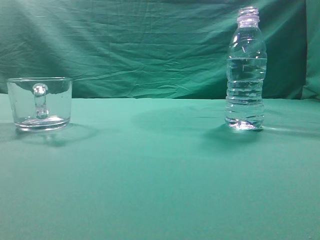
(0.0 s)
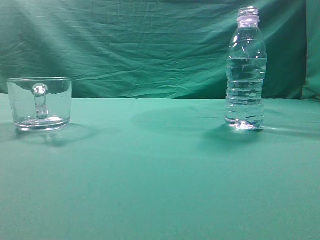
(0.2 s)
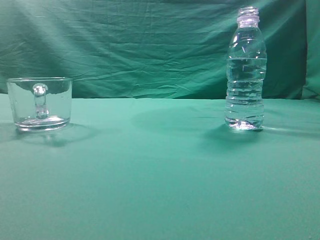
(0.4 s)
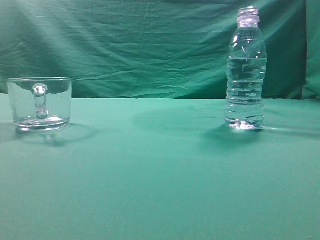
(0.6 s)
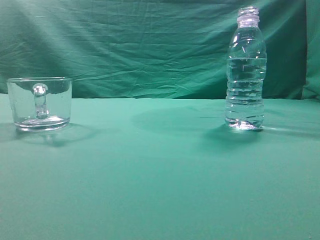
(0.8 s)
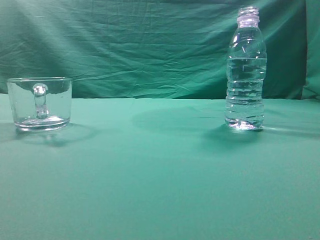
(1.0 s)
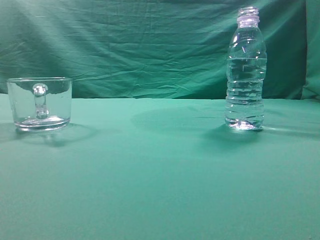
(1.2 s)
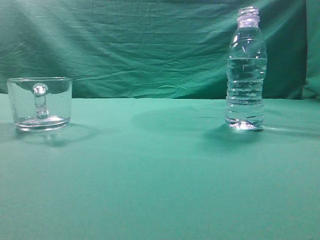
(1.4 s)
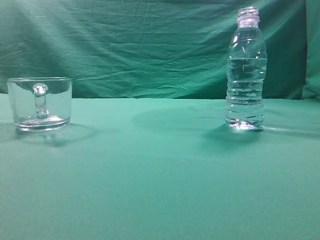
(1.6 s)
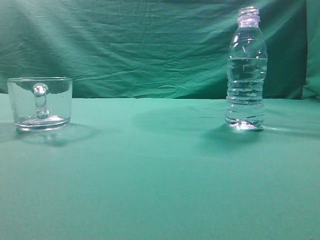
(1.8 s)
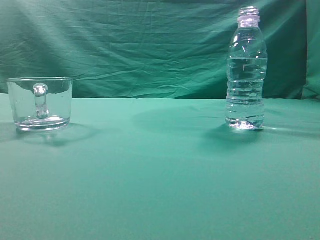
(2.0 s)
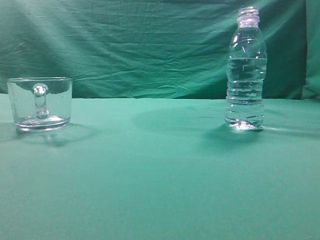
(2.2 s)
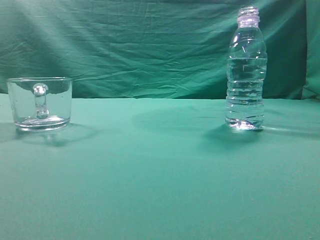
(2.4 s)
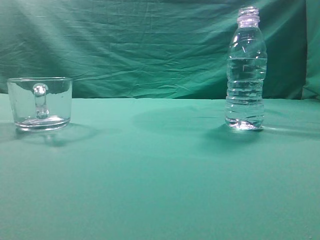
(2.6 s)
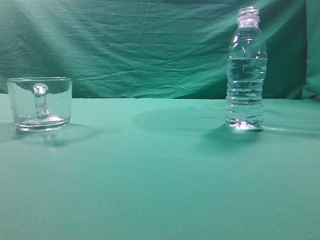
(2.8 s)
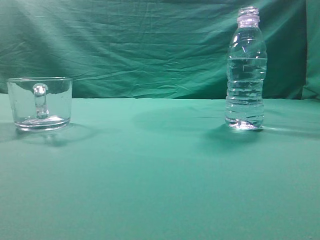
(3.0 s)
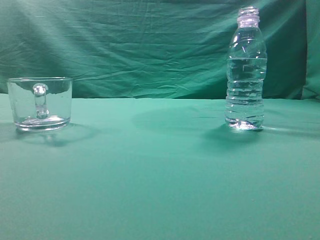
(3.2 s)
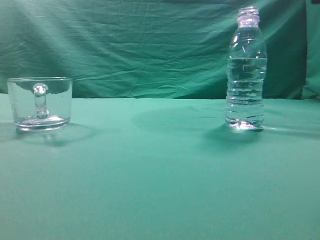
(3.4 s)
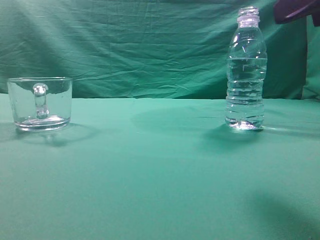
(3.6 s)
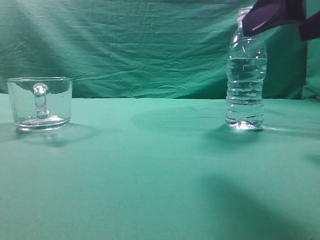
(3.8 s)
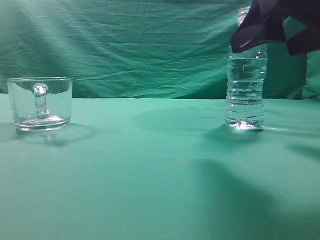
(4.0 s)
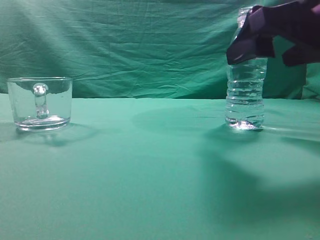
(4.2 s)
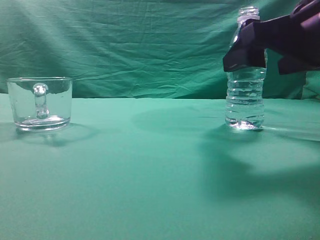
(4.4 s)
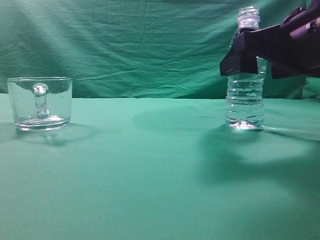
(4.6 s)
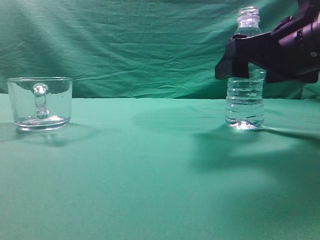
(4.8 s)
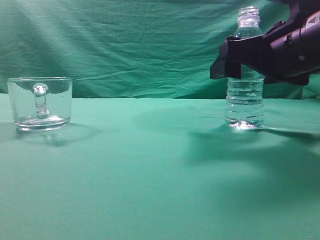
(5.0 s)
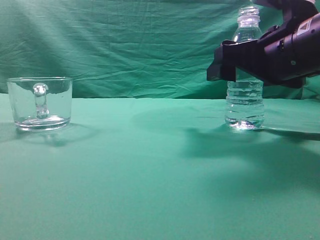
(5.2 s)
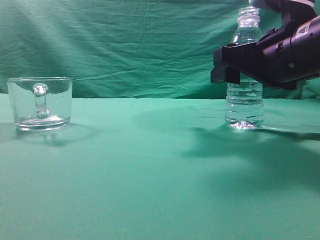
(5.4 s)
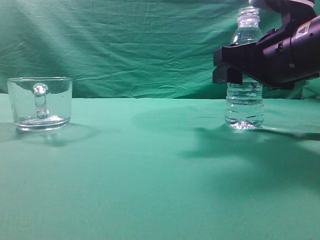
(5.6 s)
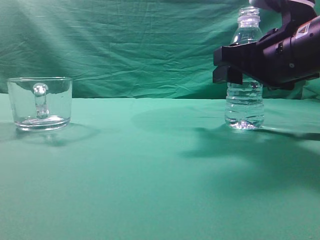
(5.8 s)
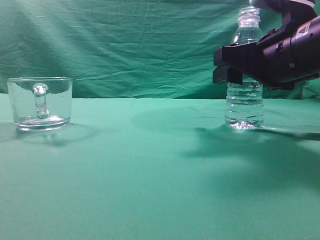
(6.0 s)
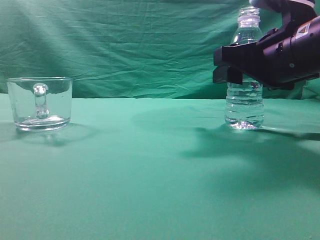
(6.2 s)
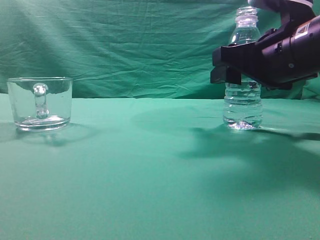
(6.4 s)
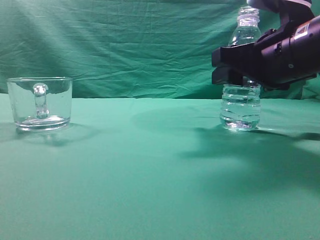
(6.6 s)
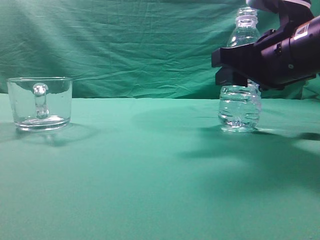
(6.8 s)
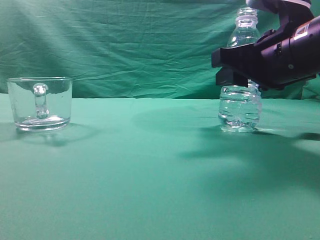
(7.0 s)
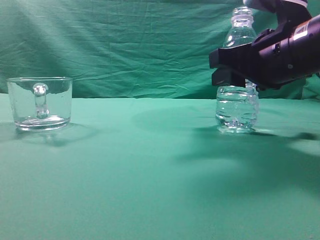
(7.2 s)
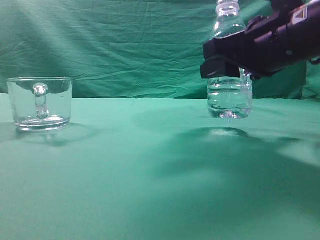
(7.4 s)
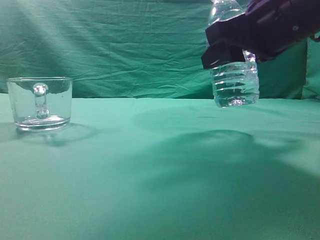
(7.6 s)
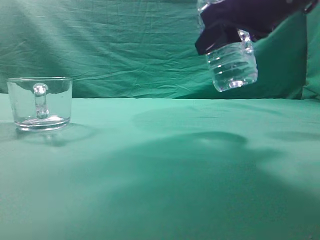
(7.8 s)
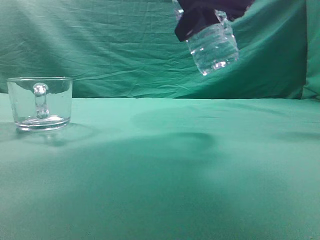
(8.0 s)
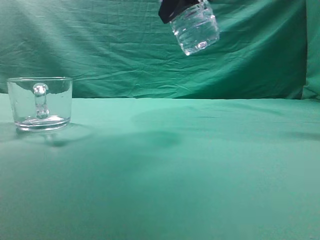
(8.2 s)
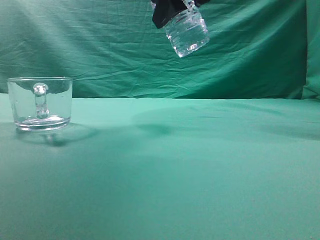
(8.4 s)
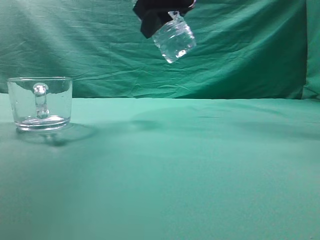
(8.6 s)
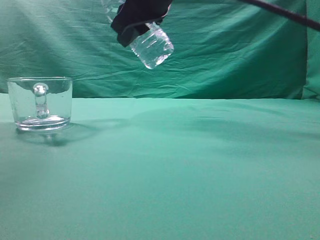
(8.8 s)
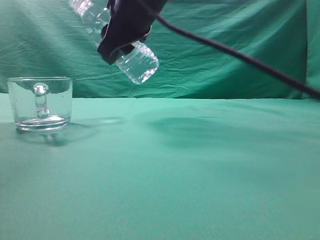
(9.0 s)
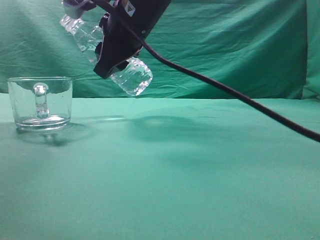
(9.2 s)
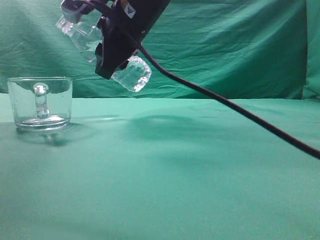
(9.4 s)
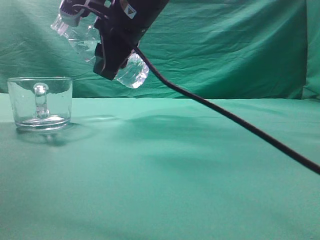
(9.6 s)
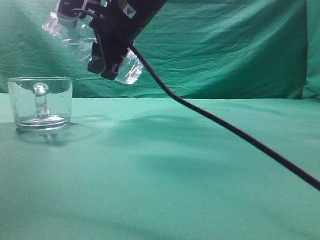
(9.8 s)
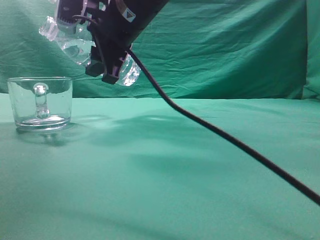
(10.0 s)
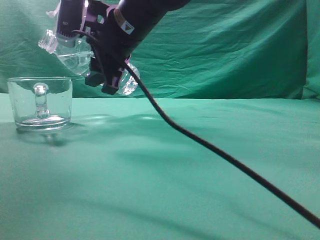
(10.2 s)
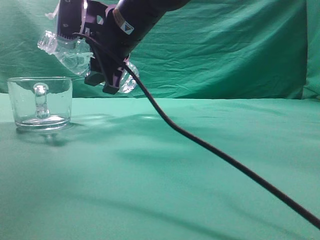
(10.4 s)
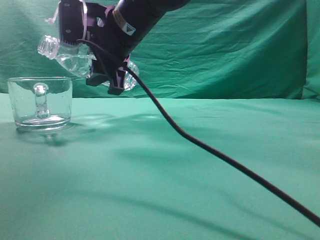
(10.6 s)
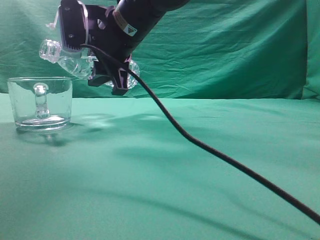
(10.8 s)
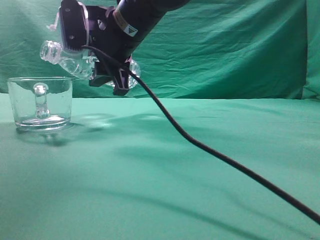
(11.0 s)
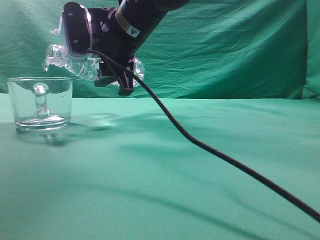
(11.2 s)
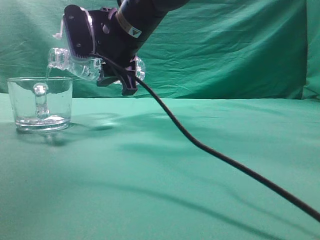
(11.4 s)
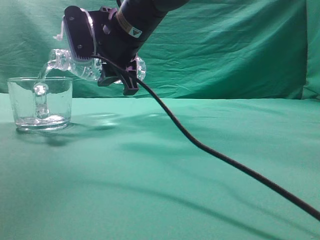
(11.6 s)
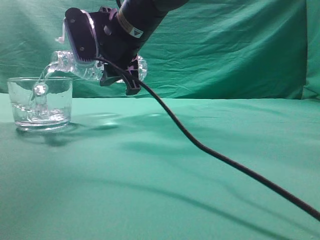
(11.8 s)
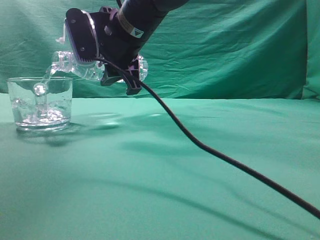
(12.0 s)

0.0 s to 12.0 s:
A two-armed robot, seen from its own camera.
Task of the whole recording: pick up the water bottle and pour the water in it into the glass.
Step, 0.0 to 7.6 s: Grasp the mineral water bottle.
3.0 to 4.4 s: The right gripper heads forward, downward and to the left, covering approximately 15 cm, and opens its fingers.
4.4 to 6.0 s: The right gripper heads forward, covering roughly 5 cm.
7.6 to 9.0 s: The right gripper is displaced to the left and forward by about 20 cm.
9.0 to 10.4 s: The right gripper changes place by roughly 5 cm.
10.4 to 12.0 s: The grippers move only a little.

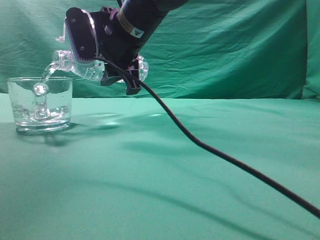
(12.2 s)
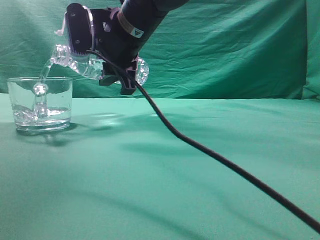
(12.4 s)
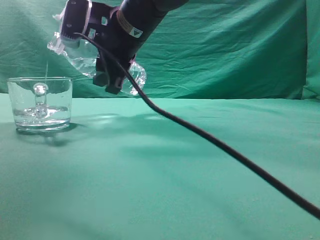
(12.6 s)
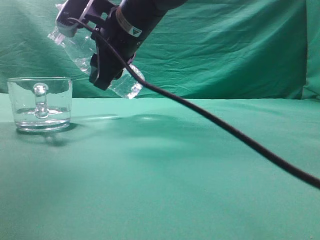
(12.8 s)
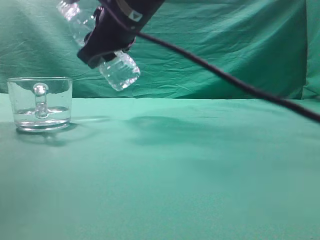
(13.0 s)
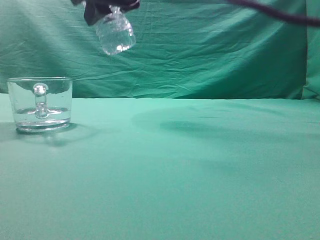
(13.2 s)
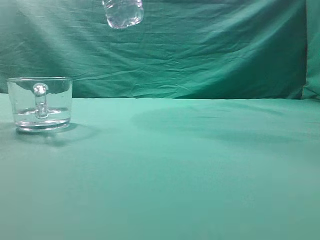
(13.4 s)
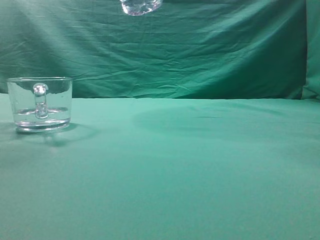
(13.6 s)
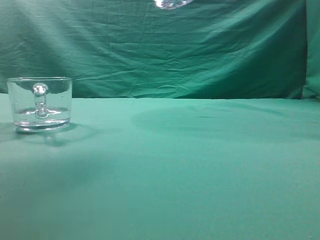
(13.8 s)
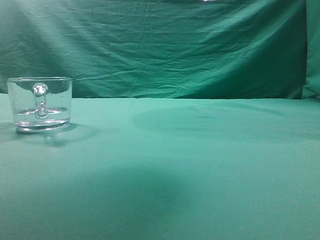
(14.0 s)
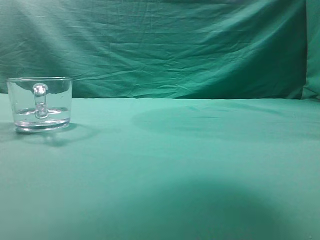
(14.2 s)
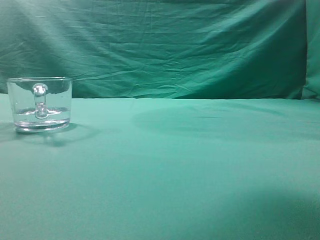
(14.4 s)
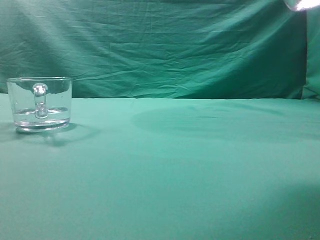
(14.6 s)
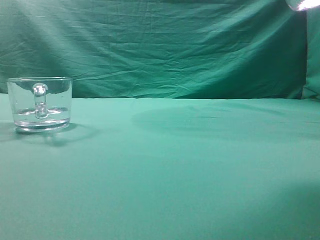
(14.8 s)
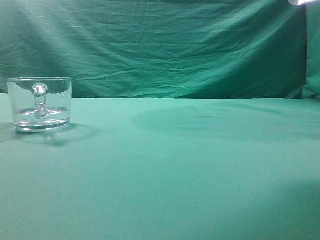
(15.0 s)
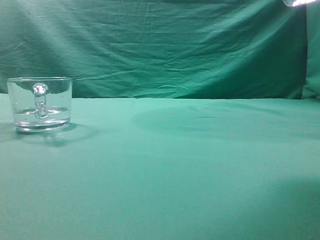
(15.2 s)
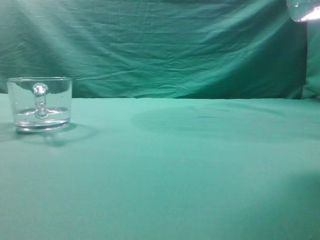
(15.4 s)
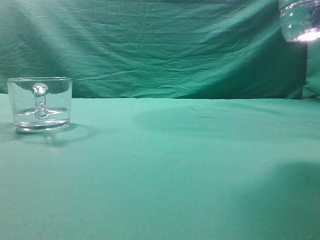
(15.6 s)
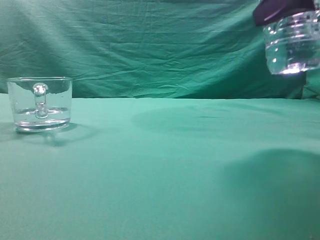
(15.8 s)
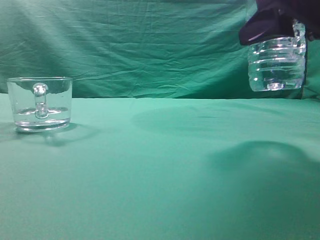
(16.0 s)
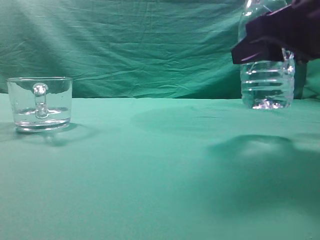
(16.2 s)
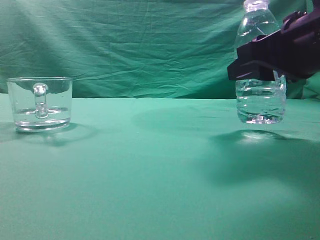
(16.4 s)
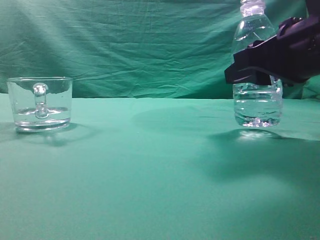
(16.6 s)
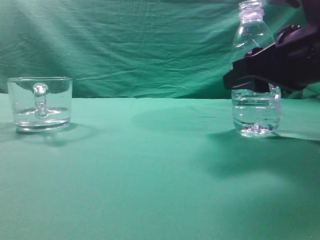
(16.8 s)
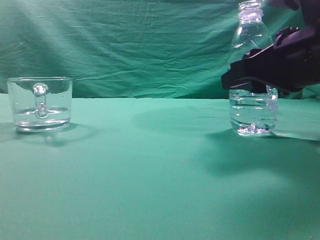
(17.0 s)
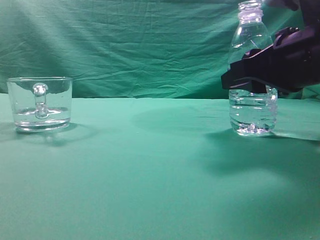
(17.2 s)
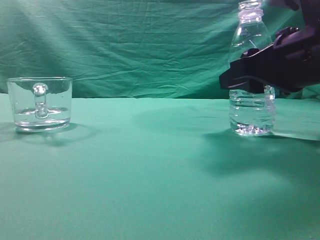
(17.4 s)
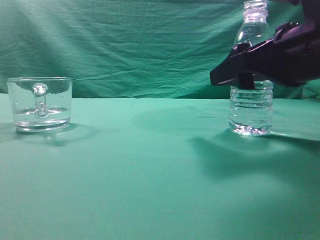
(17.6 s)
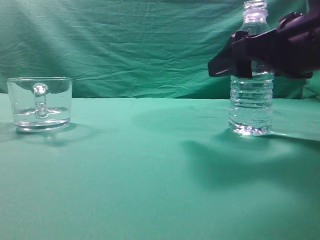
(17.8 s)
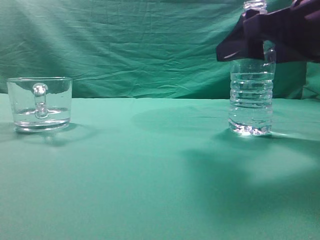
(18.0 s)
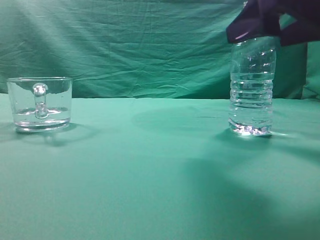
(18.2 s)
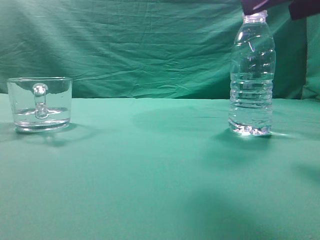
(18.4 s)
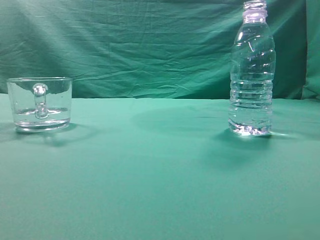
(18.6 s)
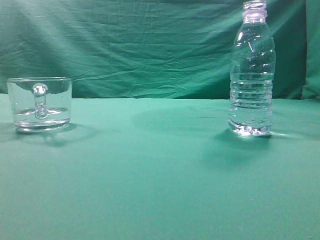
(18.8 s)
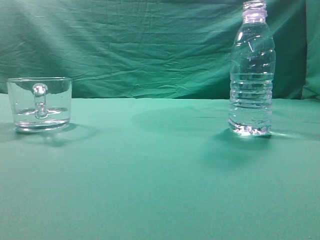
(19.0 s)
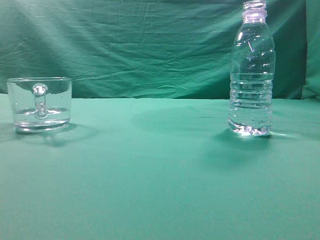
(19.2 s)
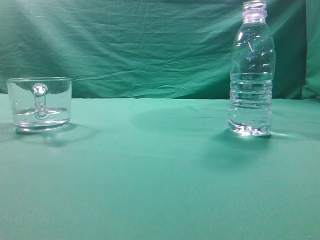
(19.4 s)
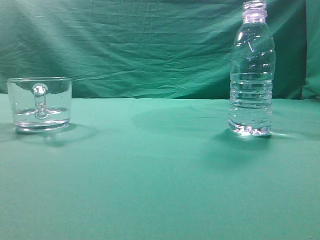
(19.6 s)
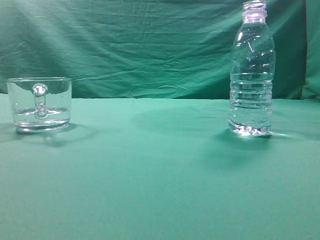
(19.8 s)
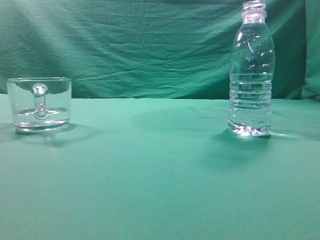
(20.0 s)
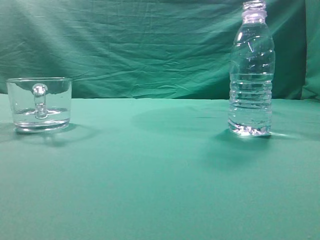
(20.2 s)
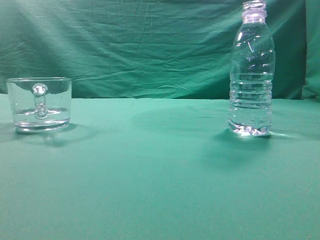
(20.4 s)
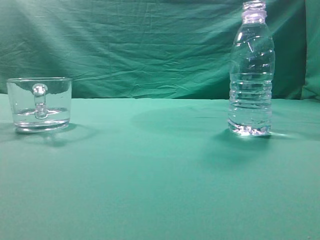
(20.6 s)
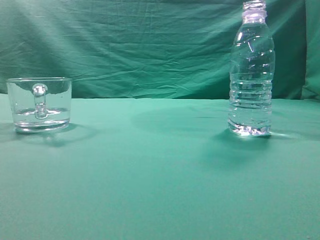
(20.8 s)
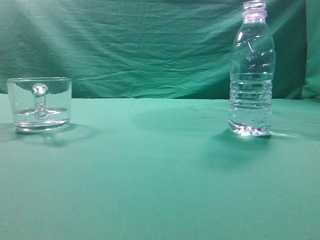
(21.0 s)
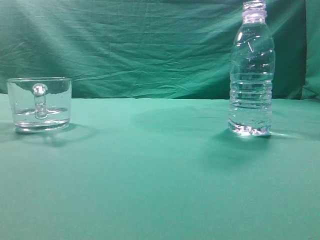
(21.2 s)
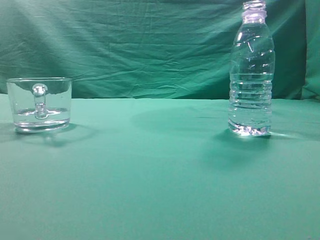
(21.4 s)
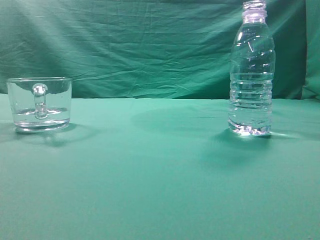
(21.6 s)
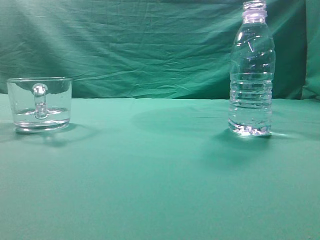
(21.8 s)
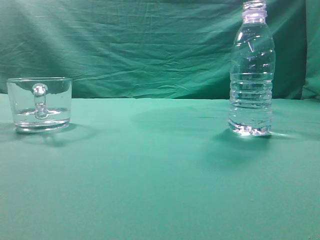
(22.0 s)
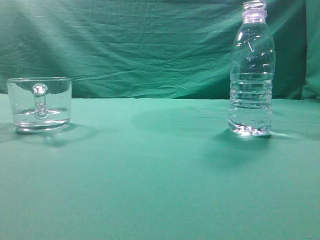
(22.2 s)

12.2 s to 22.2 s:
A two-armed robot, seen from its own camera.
Task of the whole recording: pick up the water bottle and pour the water in it into the glass.
12.2 to 13.6 s: The right gripper shifts about 15 cm upward, backward and to the right.
13.6 to 15.0 s: The right gripper shifts about 20 cm to the right and backward.
15.0 to 16.4 s: The right gripper heads downward, covering approximately 15 cm.
16.4 to 18.0 s: The right gripper opens.
18.0 to 19.4 s: The right gripper heads backward, upward and to the right, covering about 25 cm, and closes.
